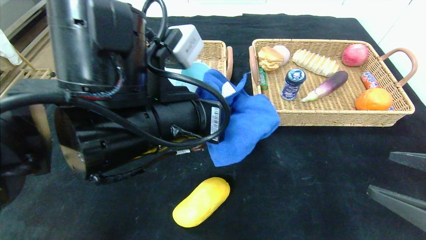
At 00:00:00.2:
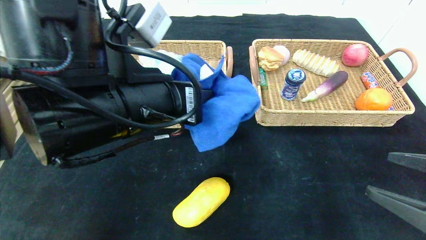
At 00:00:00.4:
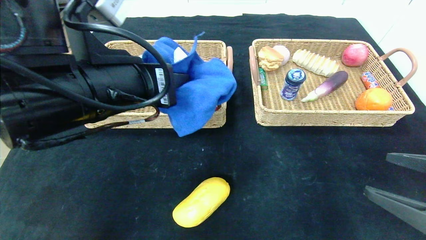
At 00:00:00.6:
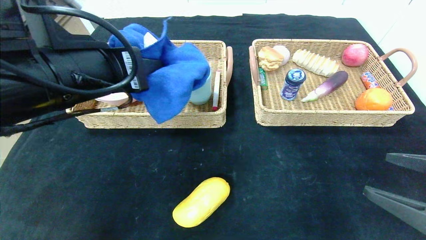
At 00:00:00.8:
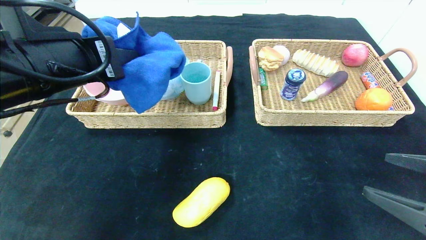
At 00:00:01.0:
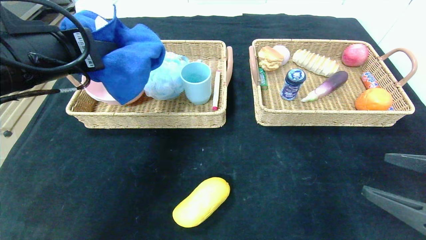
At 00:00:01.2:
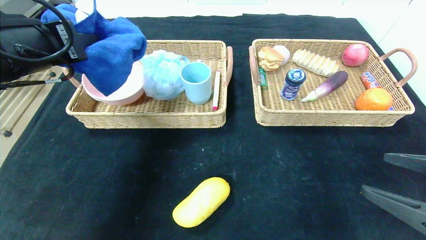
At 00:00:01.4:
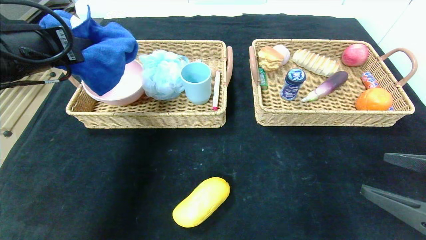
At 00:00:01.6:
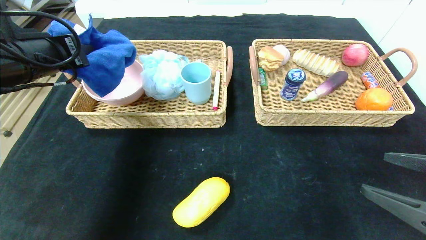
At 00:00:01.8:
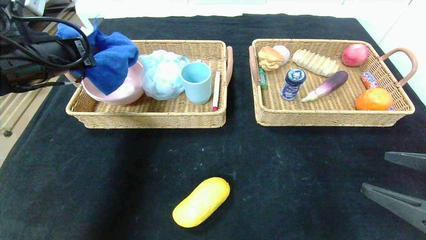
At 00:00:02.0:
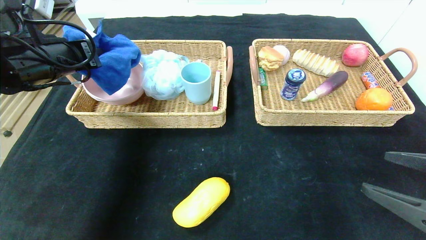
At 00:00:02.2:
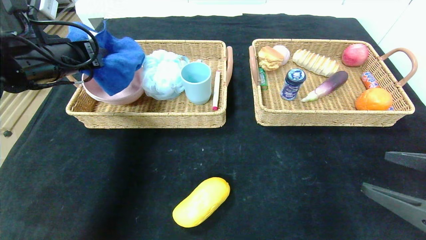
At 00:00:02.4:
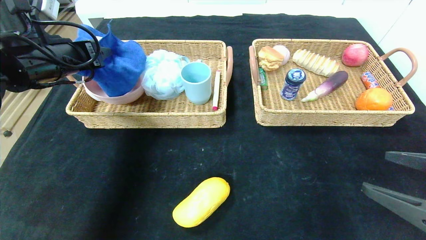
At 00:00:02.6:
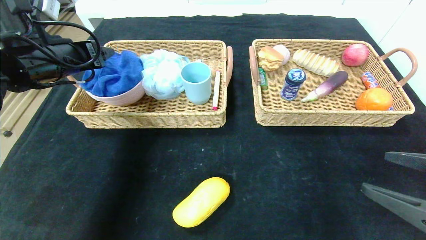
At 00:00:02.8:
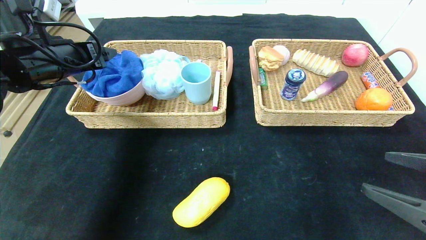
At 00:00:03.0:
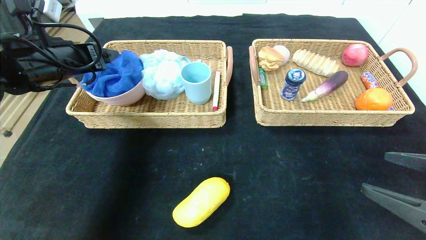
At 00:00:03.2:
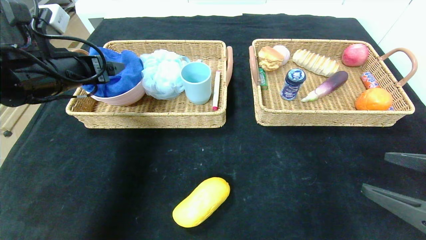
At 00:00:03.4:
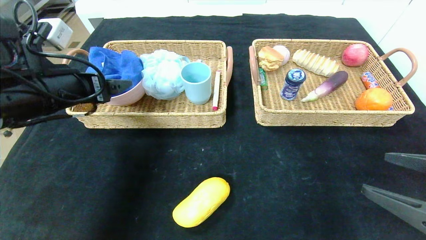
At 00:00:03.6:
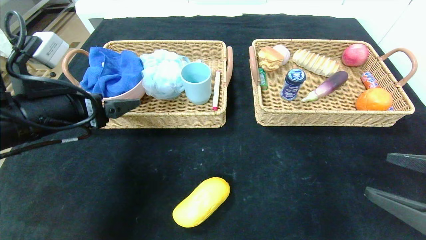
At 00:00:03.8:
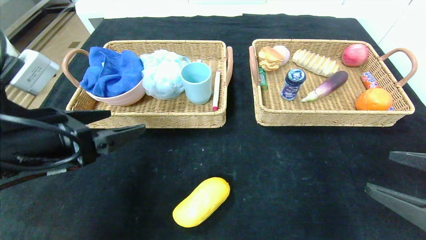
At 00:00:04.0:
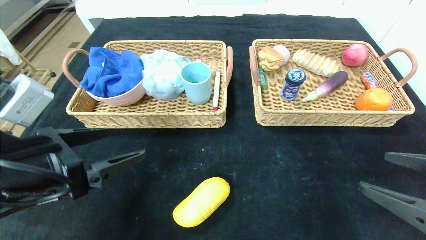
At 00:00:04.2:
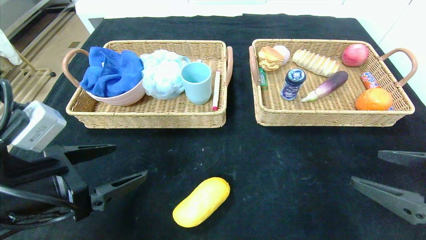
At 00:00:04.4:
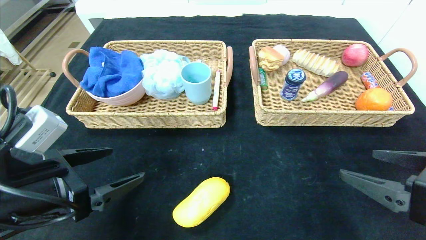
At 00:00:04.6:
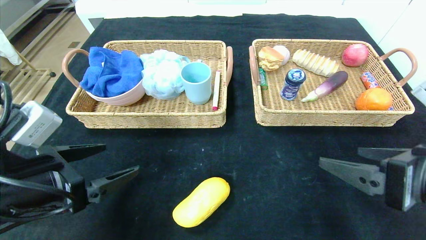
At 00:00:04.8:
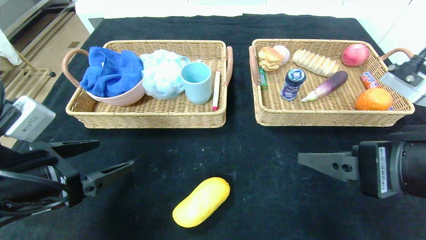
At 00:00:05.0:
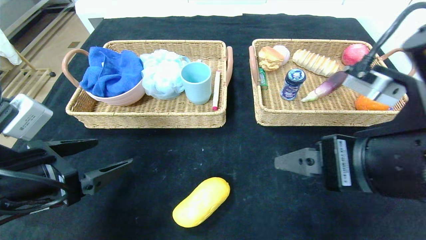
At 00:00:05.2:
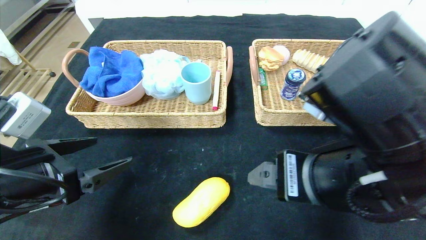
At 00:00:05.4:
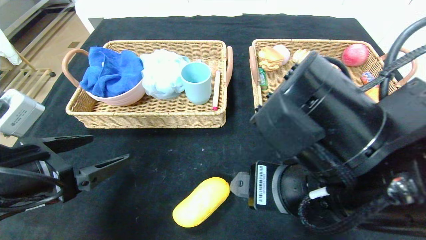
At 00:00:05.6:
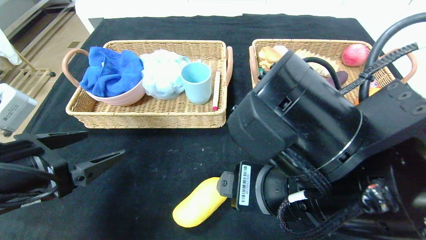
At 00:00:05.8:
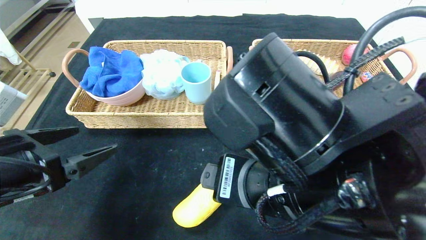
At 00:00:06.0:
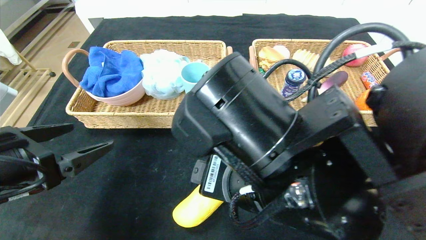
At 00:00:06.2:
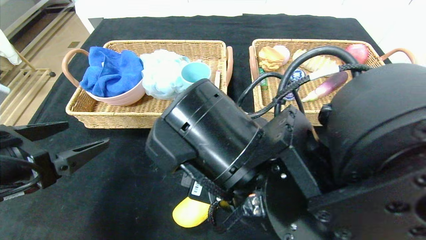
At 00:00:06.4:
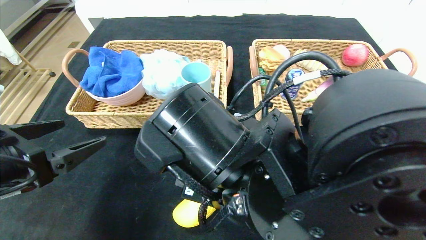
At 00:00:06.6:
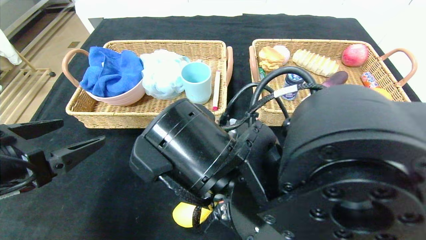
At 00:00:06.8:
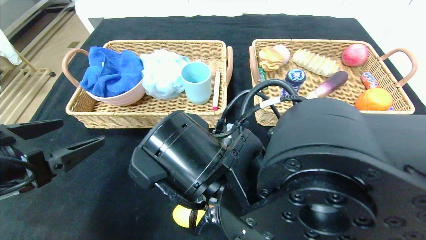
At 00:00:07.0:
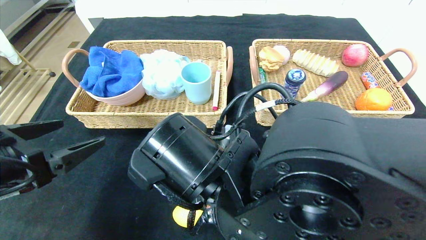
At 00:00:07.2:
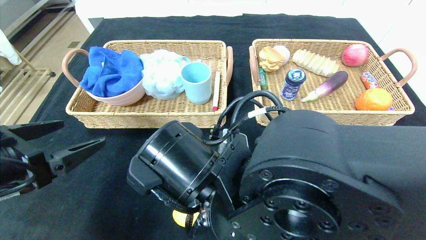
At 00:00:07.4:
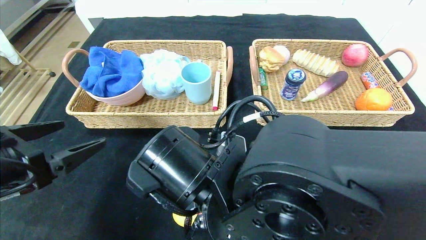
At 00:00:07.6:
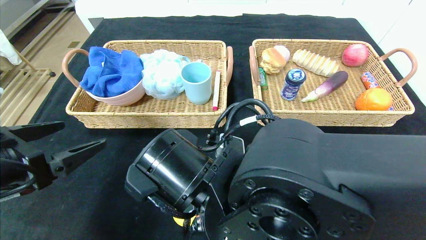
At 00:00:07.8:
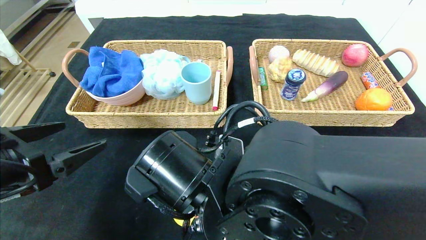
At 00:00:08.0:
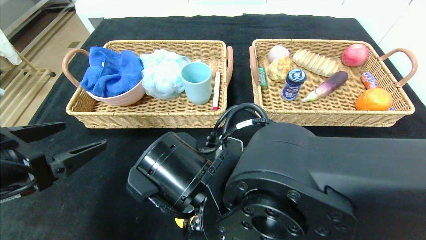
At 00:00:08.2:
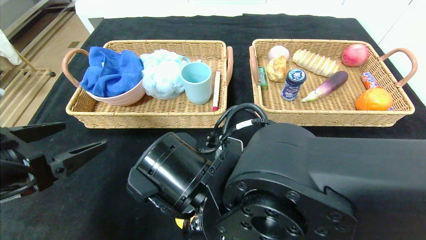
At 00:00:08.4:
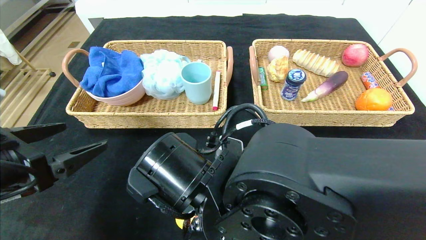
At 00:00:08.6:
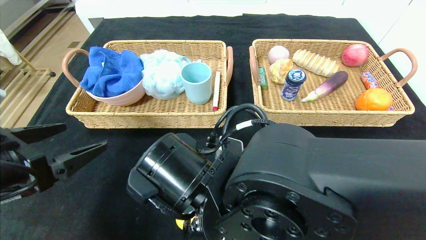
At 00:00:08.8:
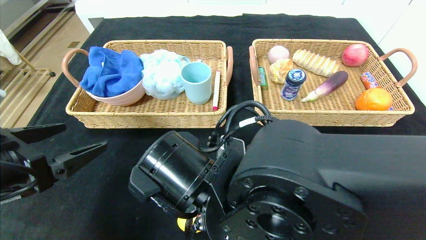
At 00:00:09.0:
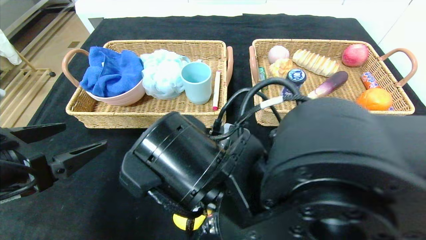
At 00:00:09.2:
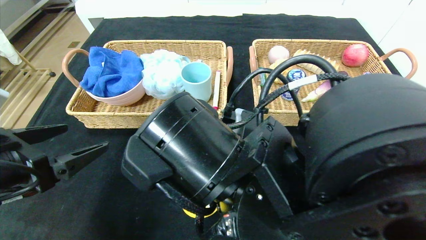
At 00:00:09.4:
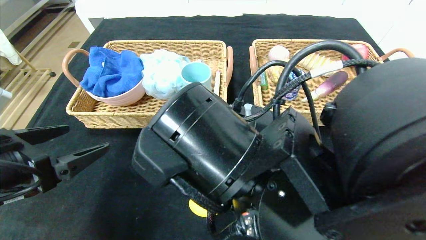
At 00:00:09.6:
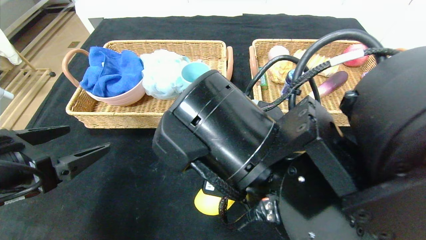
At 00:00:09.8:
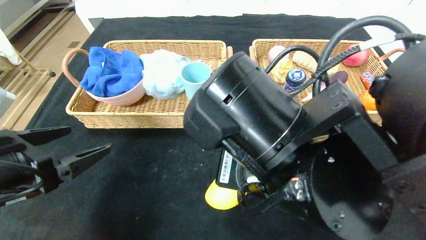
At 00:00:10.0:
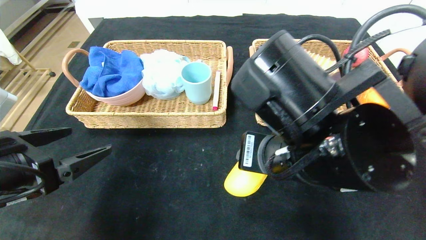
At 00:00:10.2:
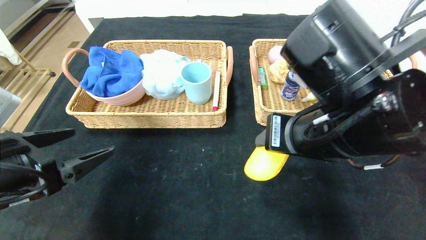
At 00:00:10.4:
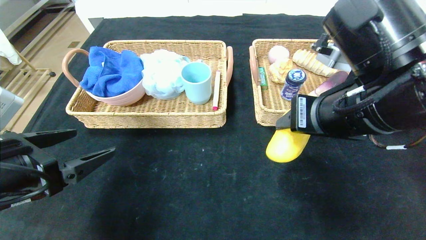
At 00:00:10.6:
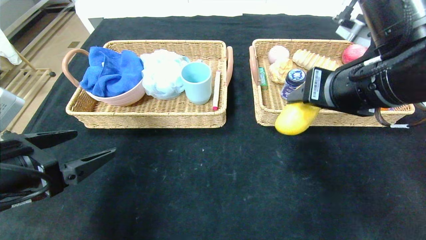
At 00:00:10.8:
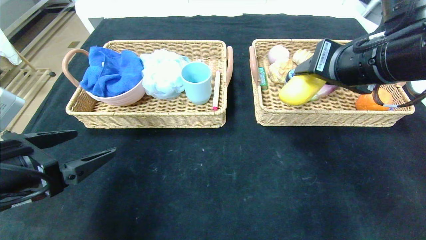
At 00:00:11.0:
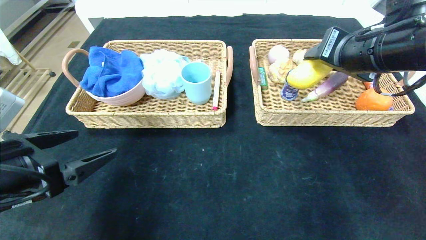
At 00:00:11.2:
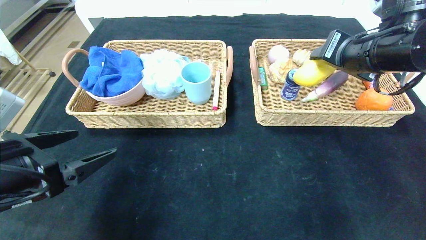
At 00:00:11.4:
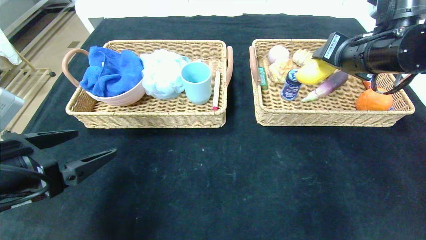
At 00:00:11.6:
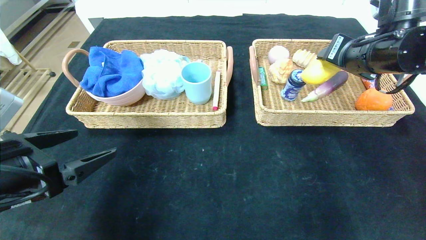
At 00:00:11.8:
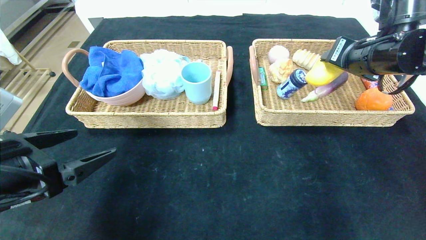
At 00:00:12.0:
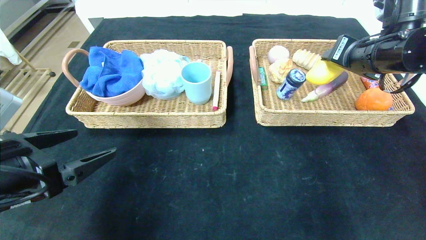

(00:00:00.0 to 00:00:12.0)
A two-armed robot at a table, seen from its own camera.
Step, 00:00:00.0 - 00:00:02.8: Grasp the blue towel and put it in the left basket.
00:00:00.0 - 00:00:01.6: The left gripper shifts some 20 cm to the left.
00:00:01.6 - 00:00:03.0: The left gripper opens up.
00:00:03.0 - 00:00:04.4: The left gripper is displaced backward and downward by approximately 20 cm.
00:00:04.4 - 00:00:06.0: The right gripper shifts roughly 25 cm to the left.
00:00:06.0 - 00:00:07.6: The right gripper shifts roughly 10 cm downward and to the left.
00:00:07.6 - 00:00:09.0: The right gripper closes its fingers.
00:00:09.0 - 00:00:10.4: The right gripper shifts about 15 cm to the right and upward.
00:00:10.4 - 00:00:12.0: The right gripper shifts approximately 15 cm forward and to the right.

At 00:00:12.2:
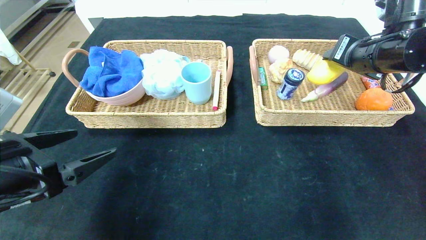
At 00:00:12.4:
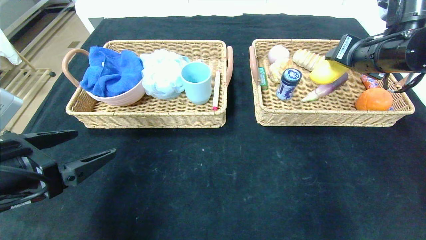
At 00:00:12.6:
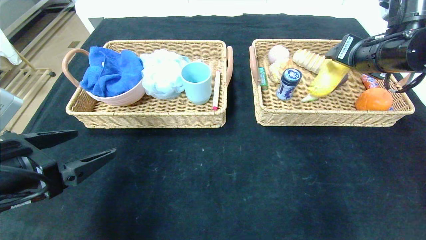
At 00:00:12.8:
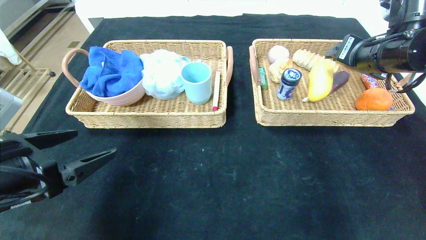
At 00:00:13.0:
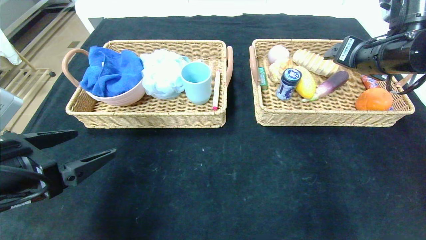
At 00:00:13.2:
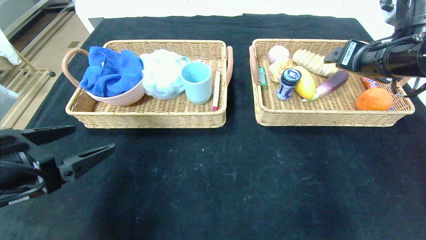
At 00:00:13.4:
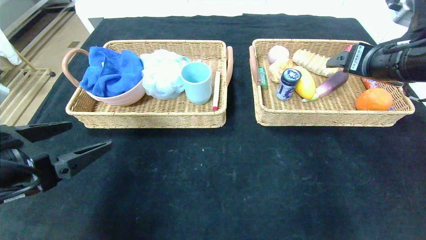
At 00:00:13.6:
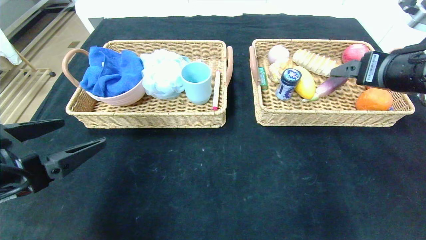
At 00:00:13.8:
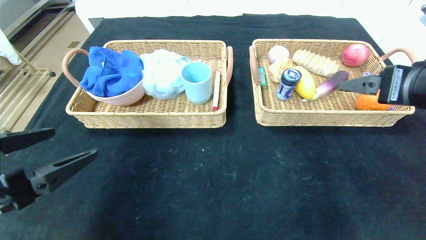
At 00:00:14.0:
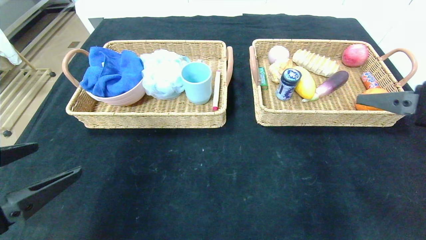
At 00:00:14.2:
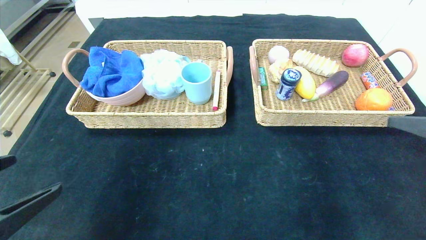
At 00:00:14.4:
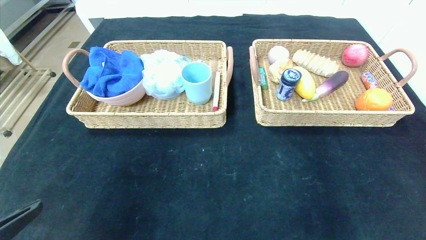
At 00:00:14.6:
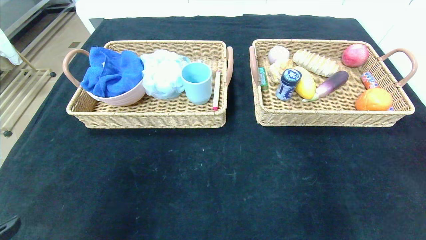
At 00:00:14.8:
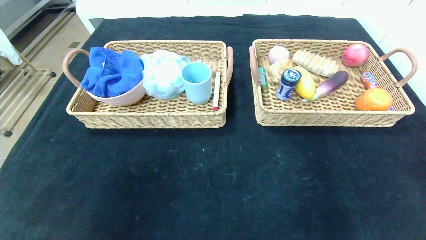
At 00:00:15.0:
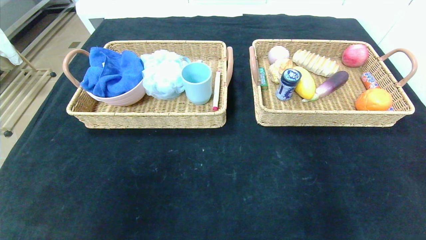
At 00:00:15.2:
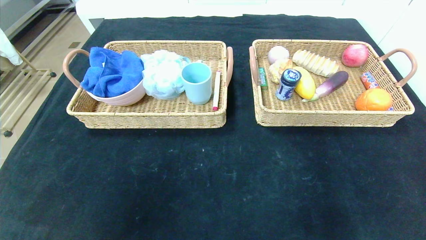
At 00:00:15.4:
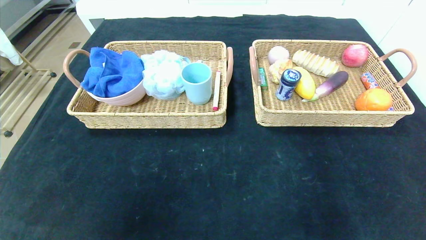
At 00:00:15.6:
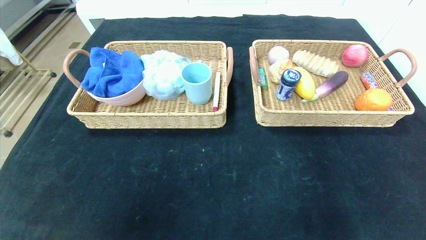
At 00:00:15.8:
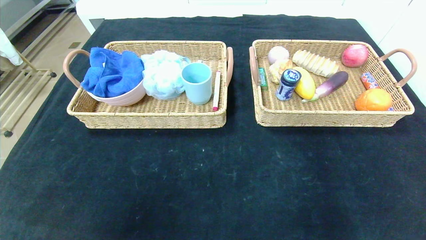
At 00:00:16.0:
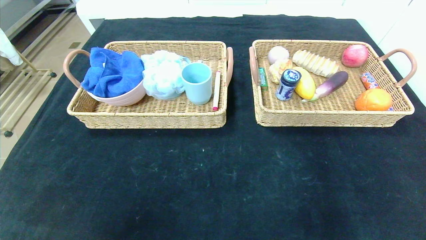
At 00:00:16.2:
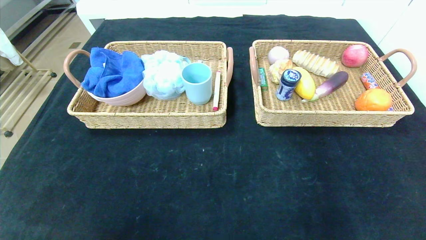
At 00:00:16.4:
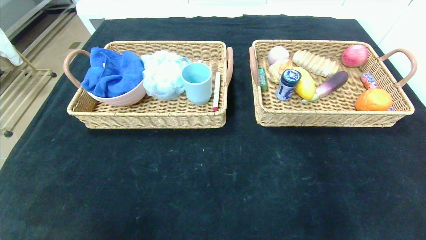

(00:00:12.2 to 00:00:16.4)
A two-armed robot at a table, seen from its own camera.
00:00:12.2 - 00:00:13.6: The right gripper travels backward by about 10 cm, and opens.
00:00:13.6 - 00:00:15.0: The right gripper heads backward, covering approximately 30 cm; the left gripper goes about 20 cm backward.
00:00:15.0 - 00:00:16.4: The grippers both shift downward by some 10 cm.
